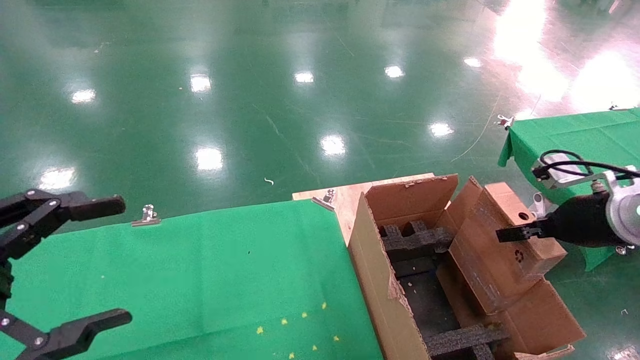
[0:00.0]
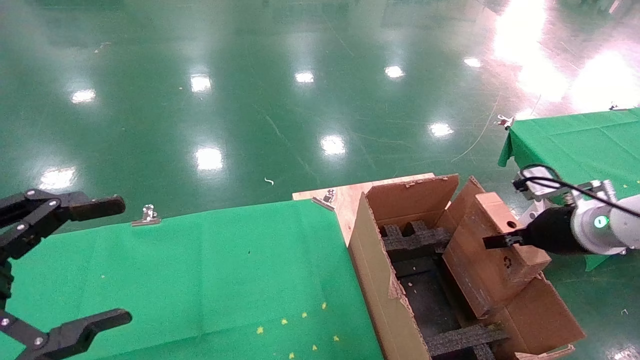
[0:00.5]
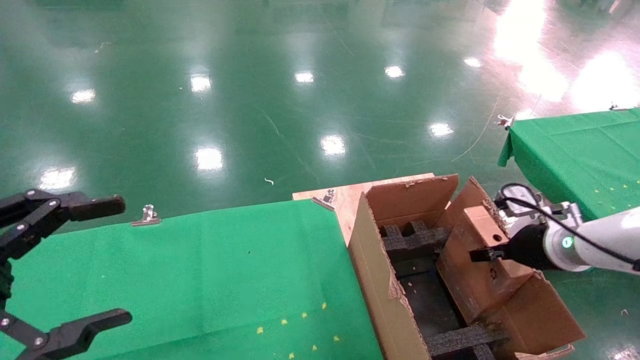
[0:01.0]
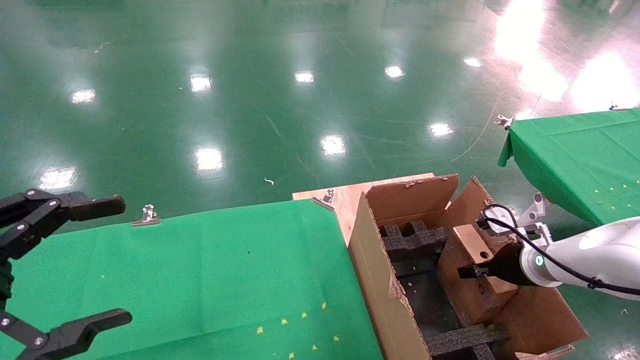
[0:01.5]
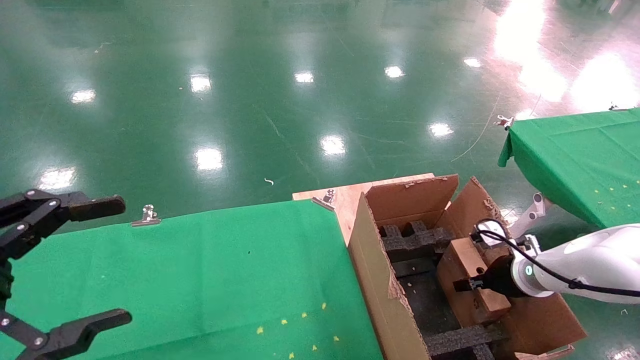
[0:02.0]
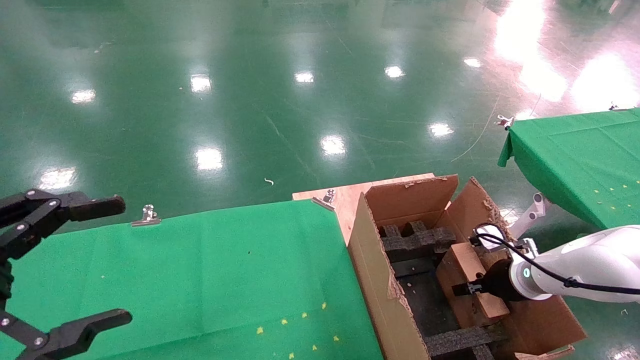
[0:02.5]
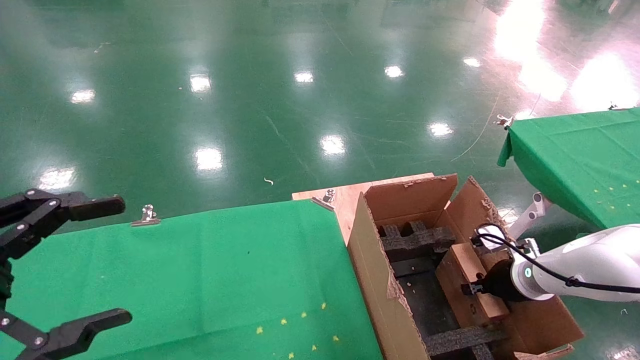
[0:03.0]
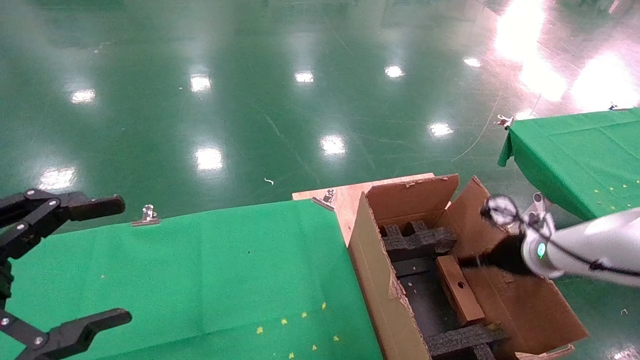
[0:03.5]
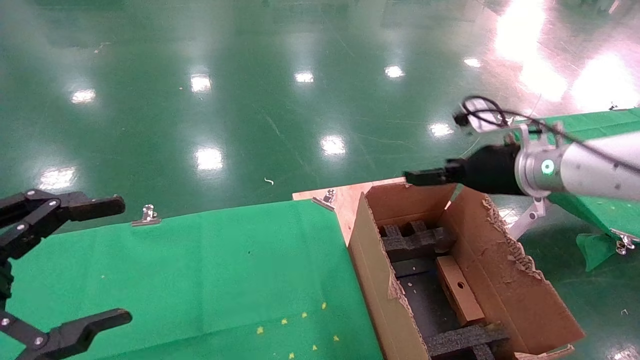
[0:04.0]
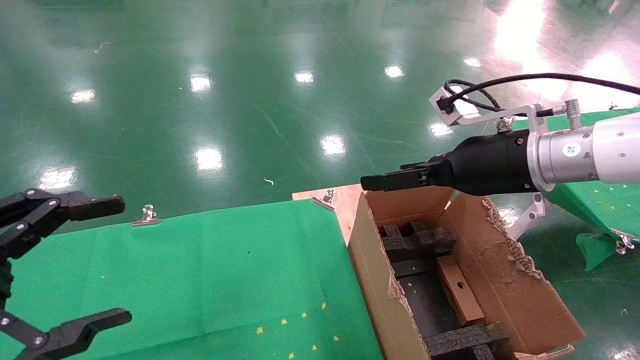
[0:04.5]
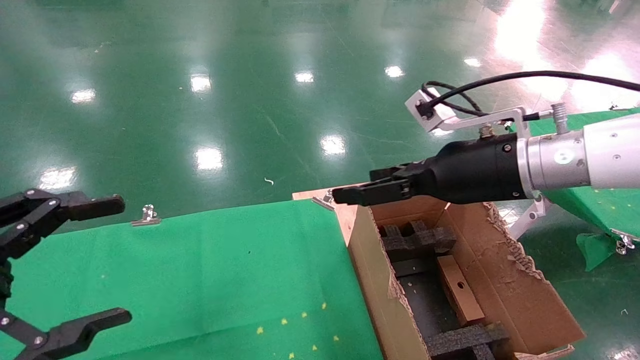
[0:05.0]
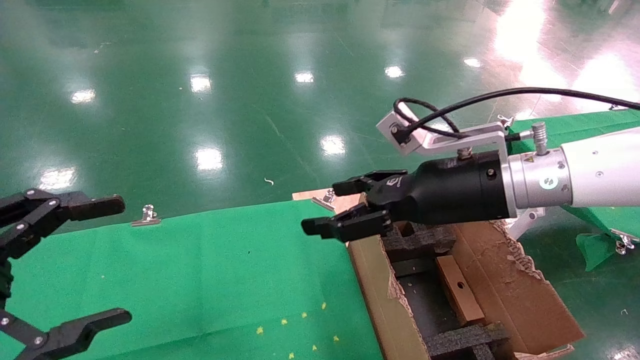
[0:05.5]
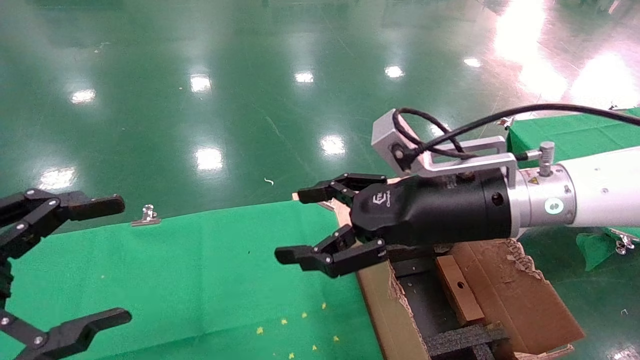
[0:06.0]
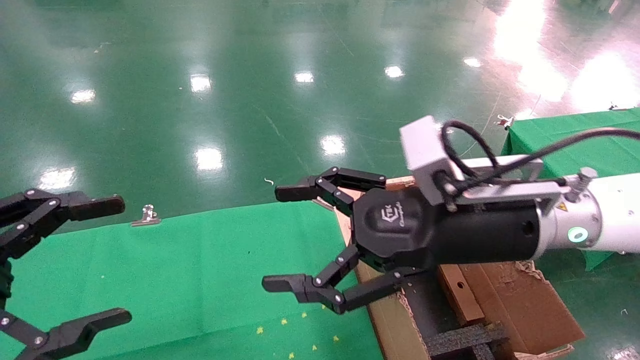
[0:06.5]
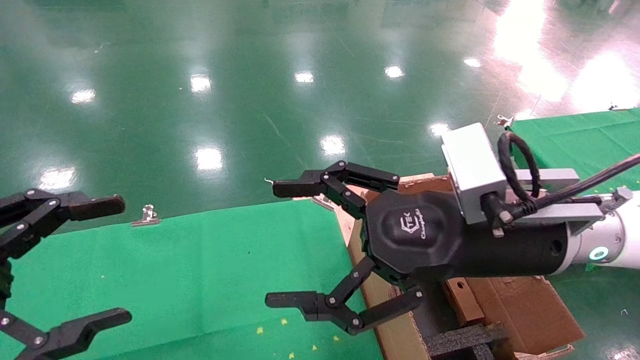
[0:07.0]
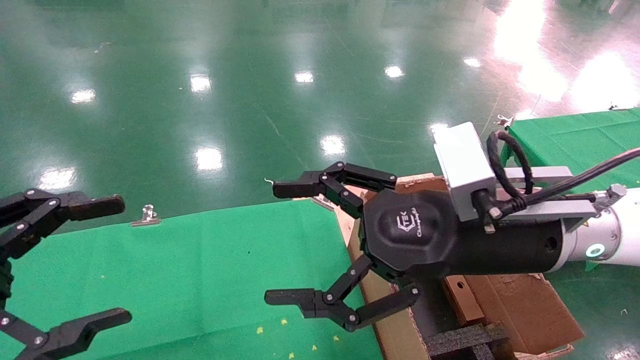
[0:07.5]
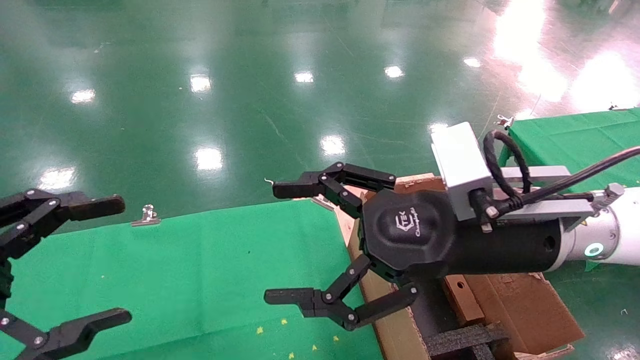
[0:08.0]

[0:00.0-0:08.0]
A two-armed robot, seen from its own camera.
Task of the whole recording: using a robotic arm to pick up a cardboard box and palace it the carton.
Step, 0:00.0 to 0:03.0: Place the mouse and the power cord paper box into the container.
0:00.0 to 0:02.0: The right gripper moves downward and forward, approximately 15 cm.
0:02.0 to 0:04.0: The right gripper travels upward by approximately 20 cm, and opens its fingers.
0:04.0 to 0:06.0: The right gripper is displaced to the left and backward by some 15 cm.
